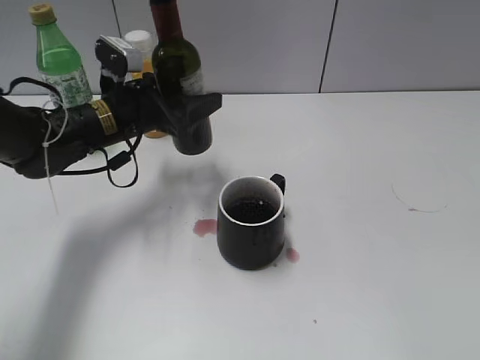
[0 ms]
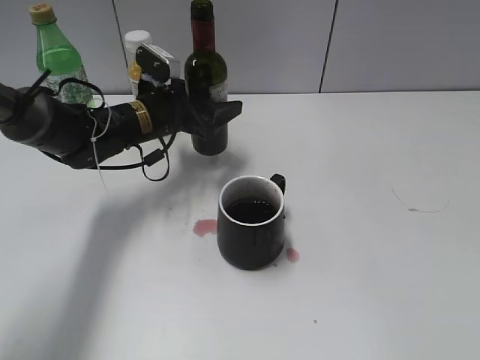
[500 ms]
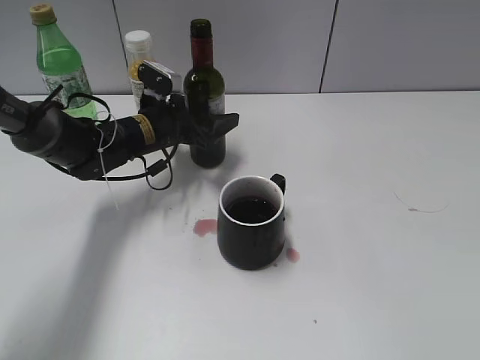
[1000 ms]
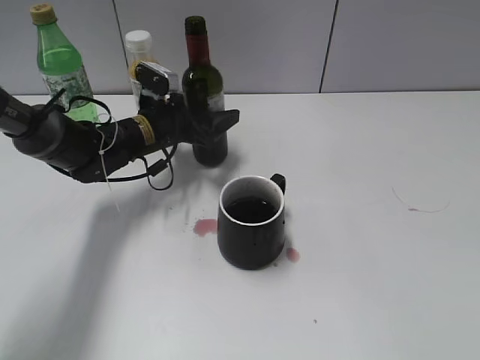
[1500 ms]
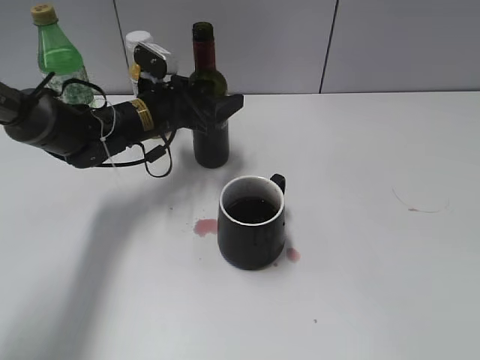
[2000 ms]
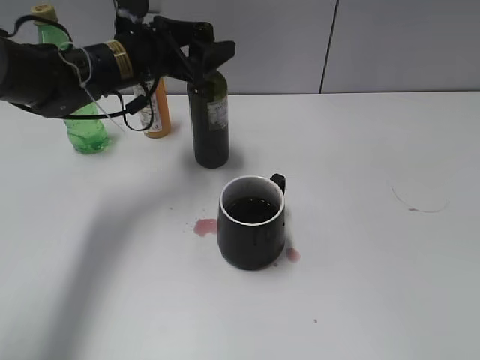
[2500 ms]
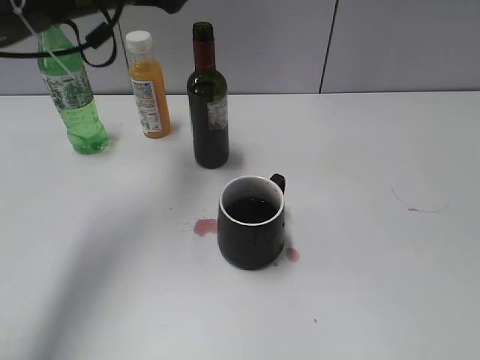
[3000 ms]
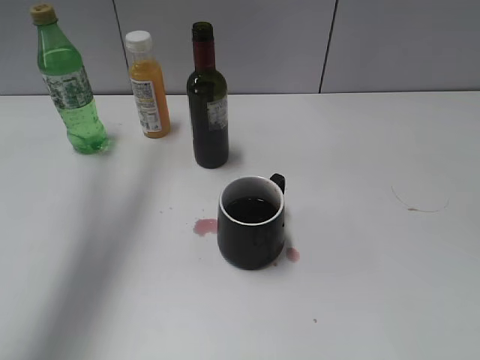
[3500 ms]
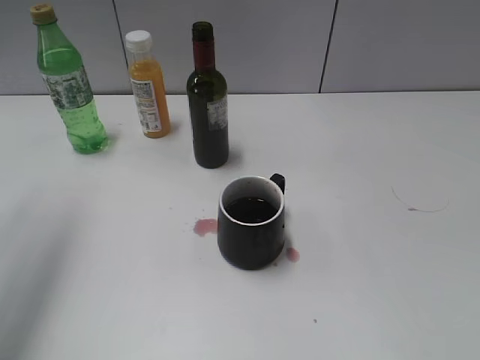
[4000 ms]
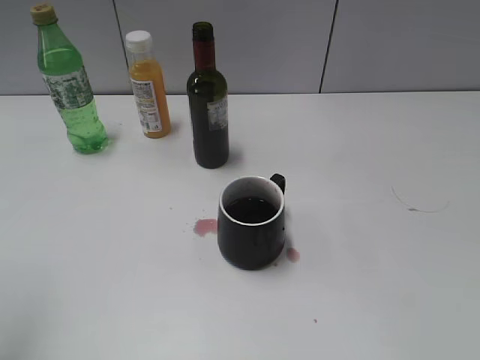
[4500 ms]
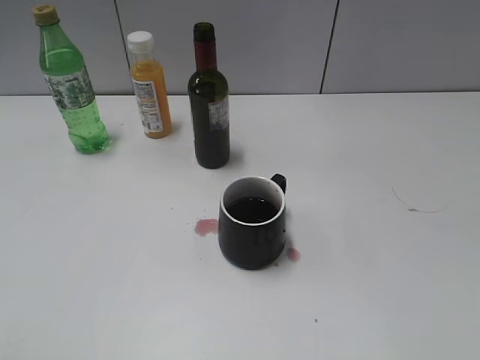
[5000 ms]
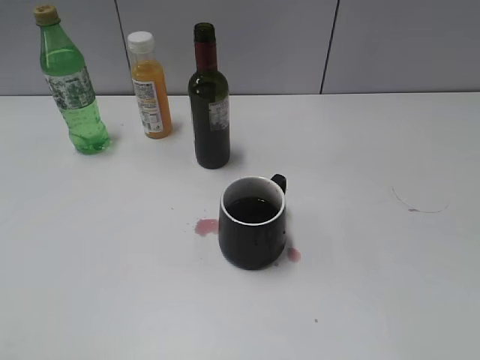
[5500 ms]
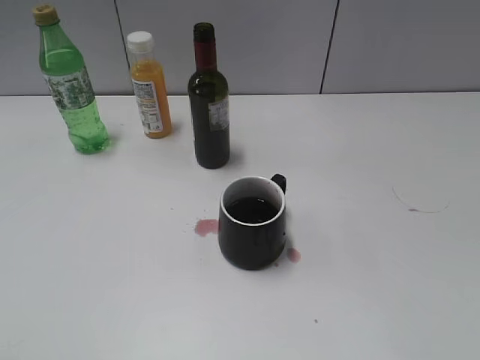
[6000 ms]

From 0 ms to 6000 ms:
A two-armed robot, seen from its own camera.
From 0 ms to 2000 ms: The left gripper moves approximately 5 cm.
From 2000 ms to 4000 ms: The left gripper shifts some 35 cm upward, to the left and backward.
From 4000 ms to 6000 ms: The left gripper is displaced backward and downward by some 30 cm.

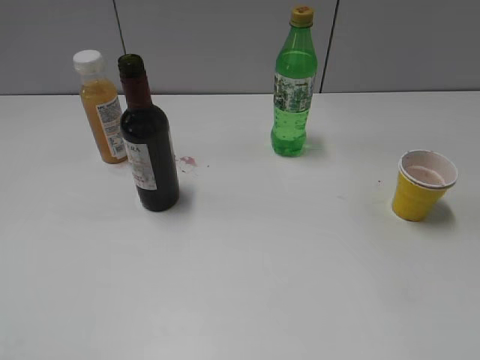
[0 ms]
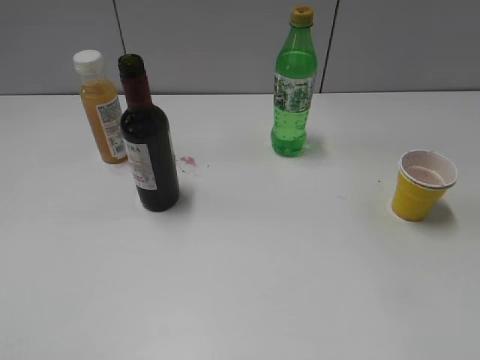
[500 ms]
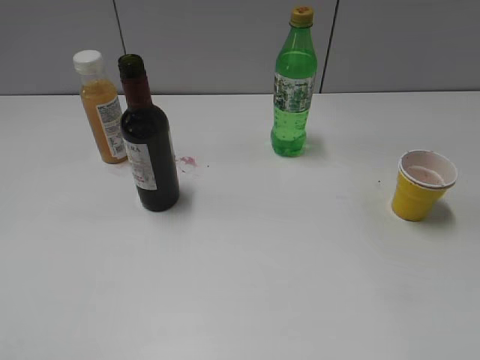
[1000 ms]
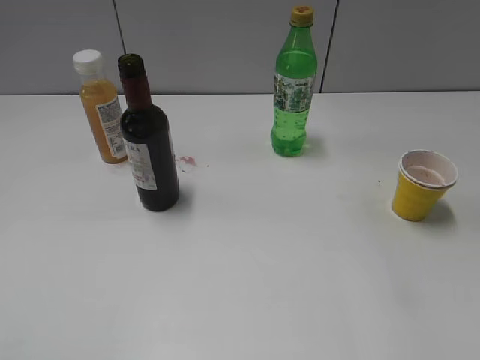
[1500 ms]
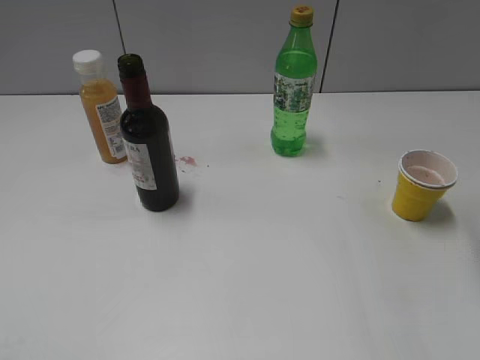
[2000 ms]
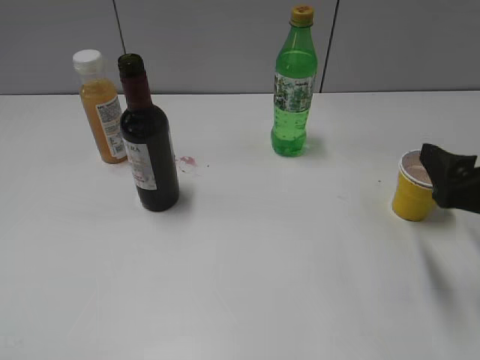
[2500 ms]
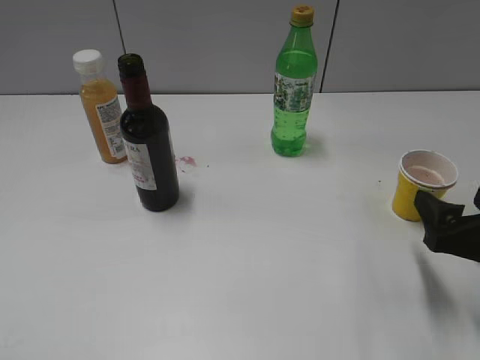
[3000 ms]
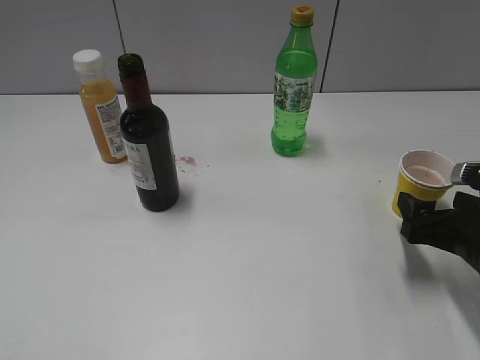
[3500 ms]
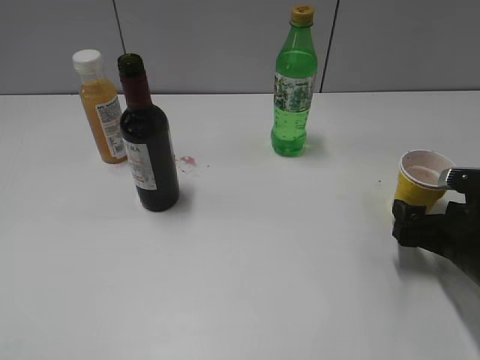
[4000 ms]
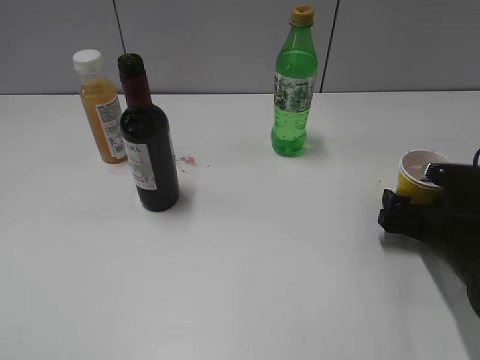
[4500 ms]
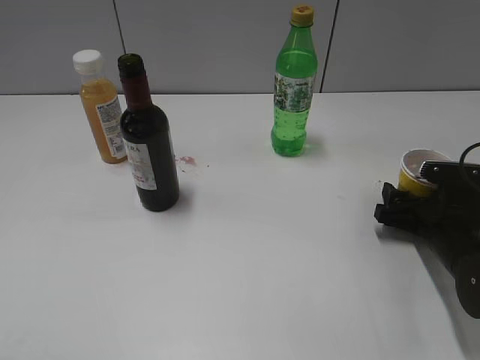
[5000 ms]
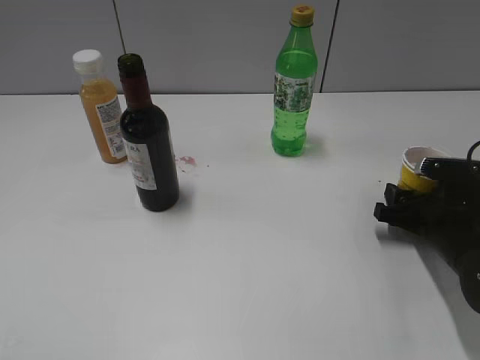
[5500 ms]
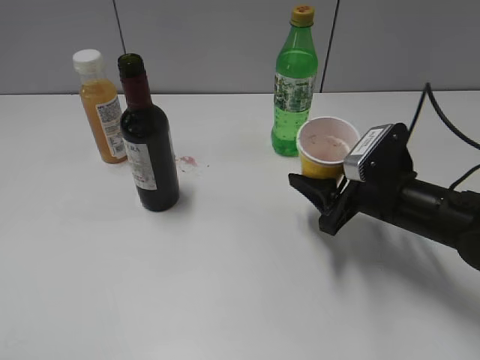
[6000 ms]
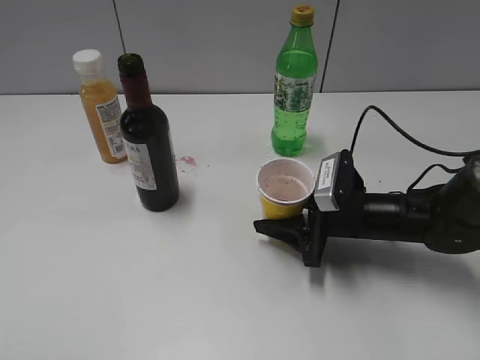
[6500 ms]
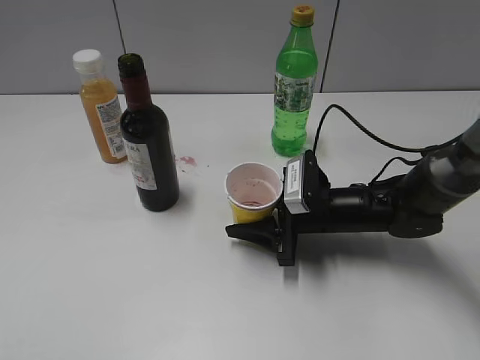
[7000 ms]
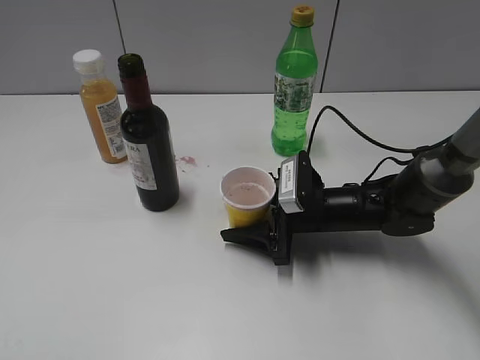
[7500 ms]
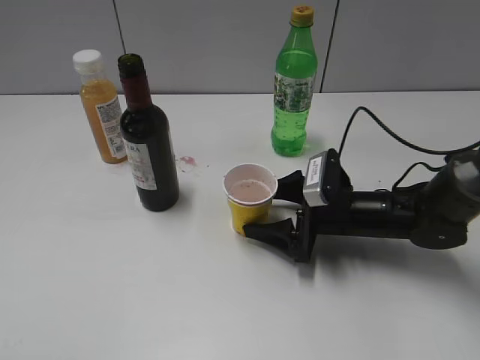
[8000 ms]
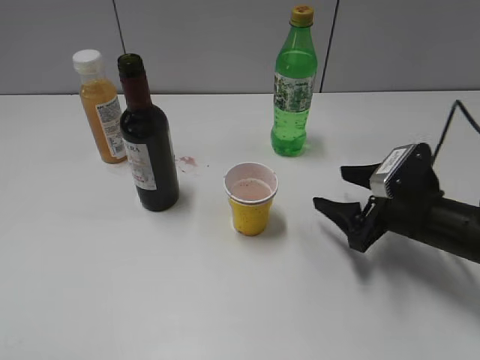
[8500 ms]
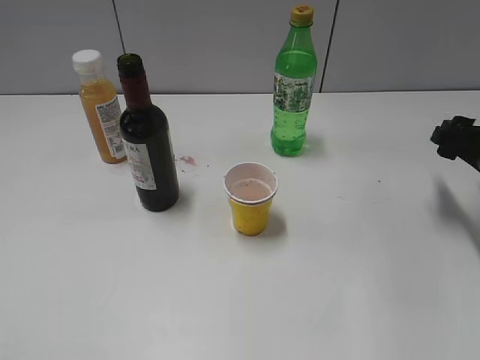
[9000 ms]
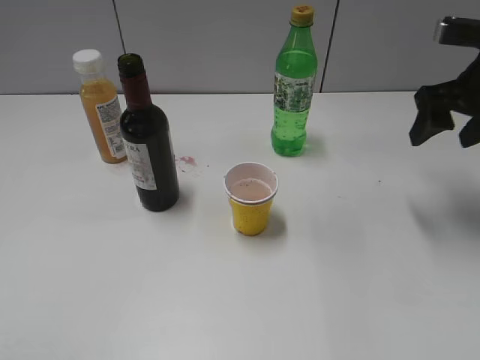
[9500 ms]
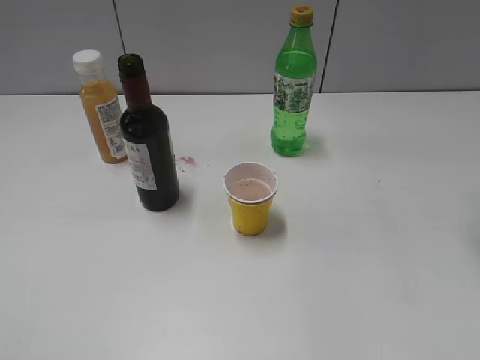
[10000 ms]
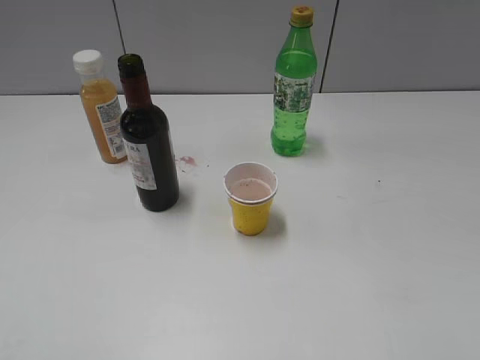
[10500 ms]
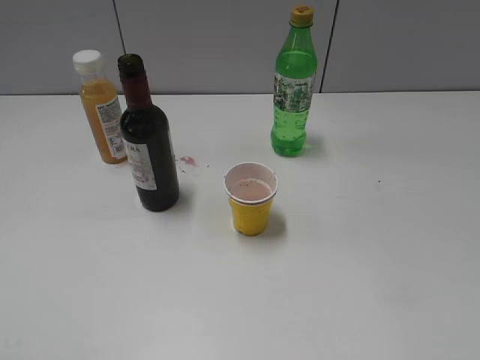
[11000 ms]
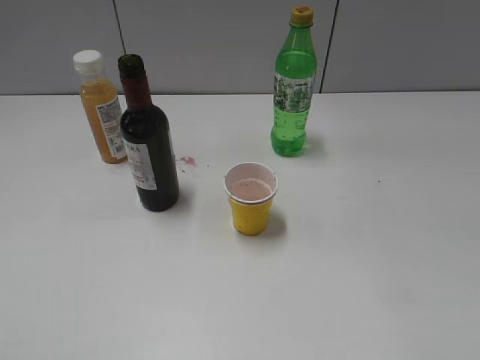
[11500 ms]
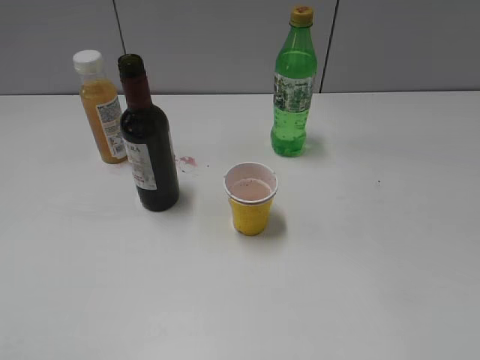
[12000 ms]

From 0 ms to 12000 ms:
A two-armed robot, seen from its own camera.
Step, from 1000 ms to 5000 ms: Grasp the yellow paper cup with right gripper.
Step, from 5500 ms to 8000 ms: Place the yellow paper cup on the table with right gripper.
From 2000 ms to 4000 ms: The right gripper is displaced downward by about 20 cm, and opens up.
From 4000 ms to 6000 ms: The right gripper heads to the left and forward, covering roughly 10 cm, and closes its fingers.
From 6000 ms to 8000 ms: The right gripper shifts roughly 10 cm downward and to the left, and opens up.
From 8000 ms to 10000 ms: The right gripper moves upward and to the right, approximately 35 cm.

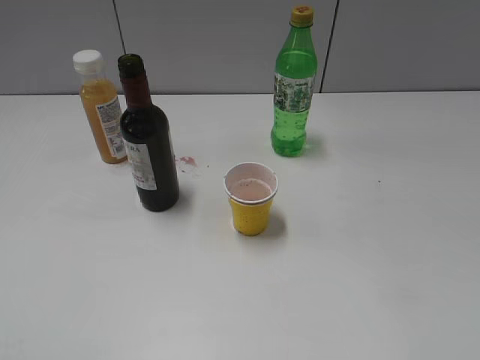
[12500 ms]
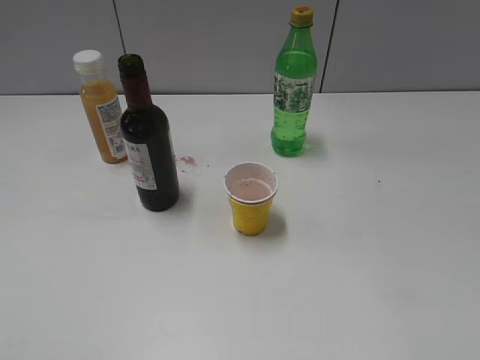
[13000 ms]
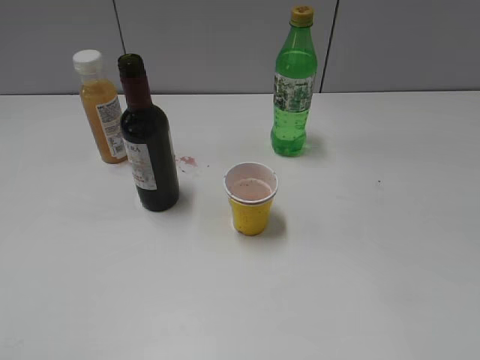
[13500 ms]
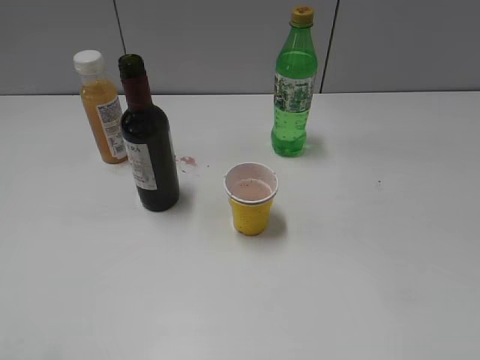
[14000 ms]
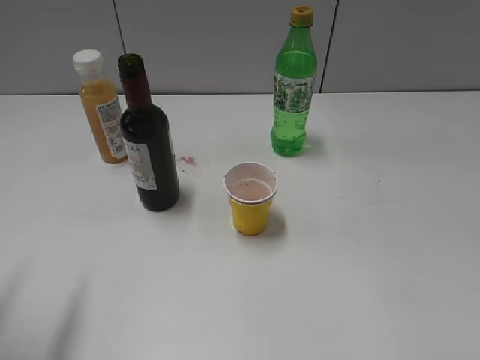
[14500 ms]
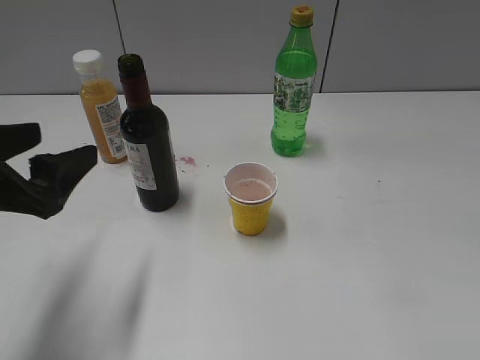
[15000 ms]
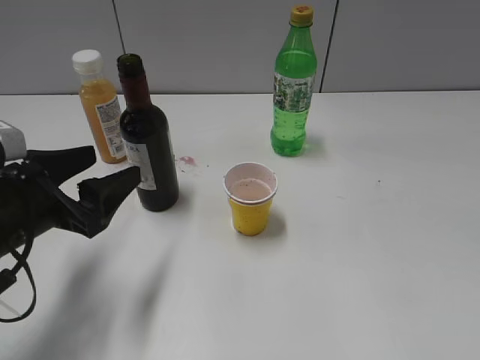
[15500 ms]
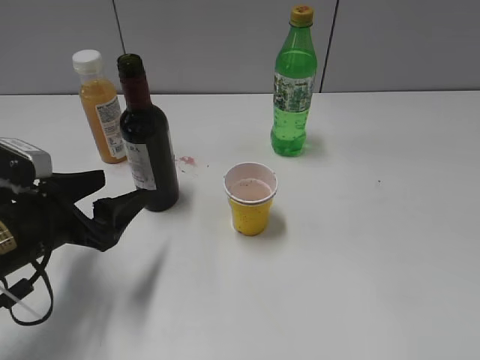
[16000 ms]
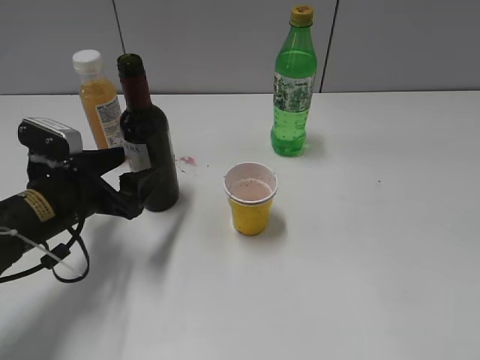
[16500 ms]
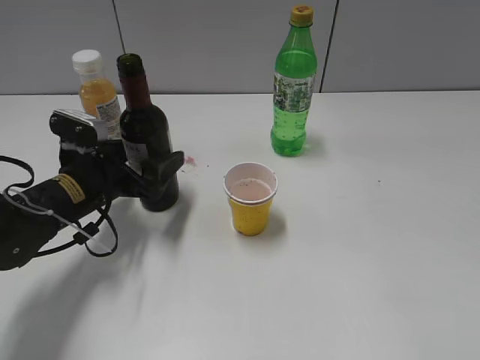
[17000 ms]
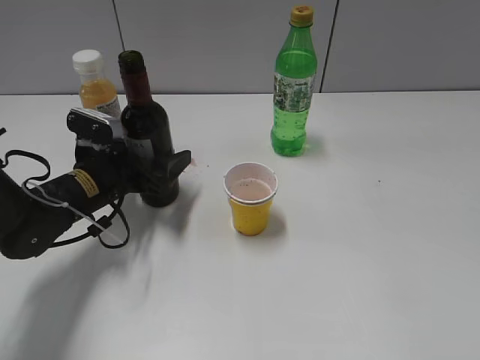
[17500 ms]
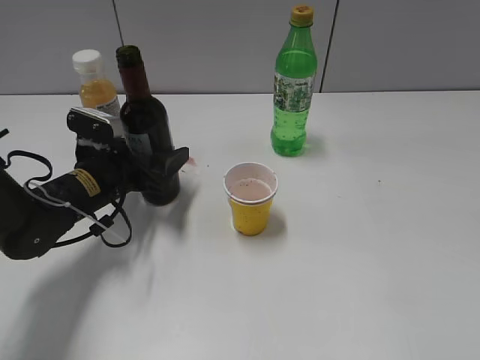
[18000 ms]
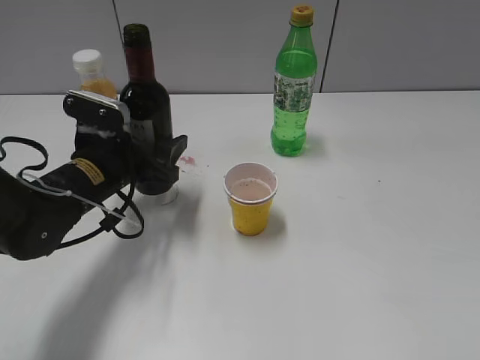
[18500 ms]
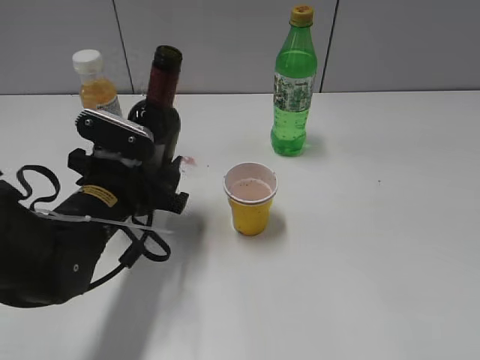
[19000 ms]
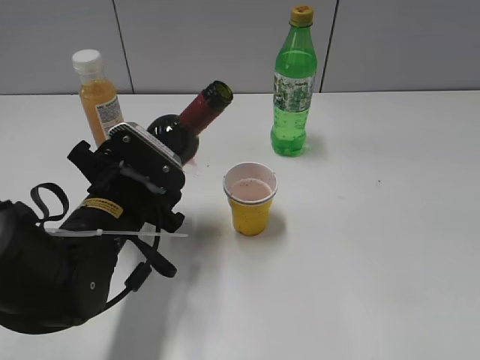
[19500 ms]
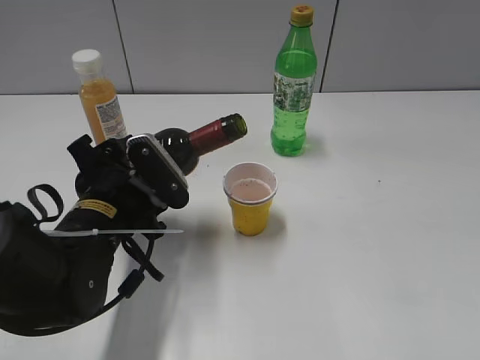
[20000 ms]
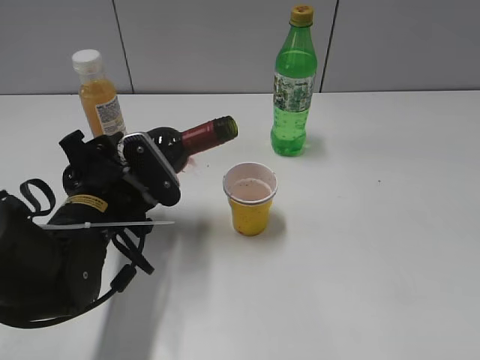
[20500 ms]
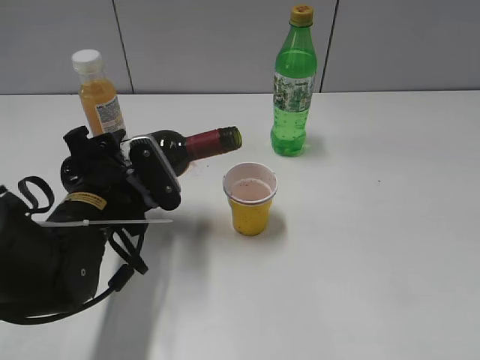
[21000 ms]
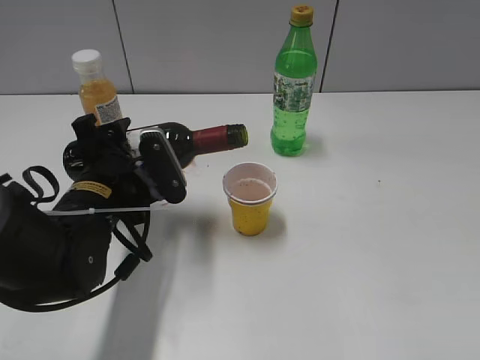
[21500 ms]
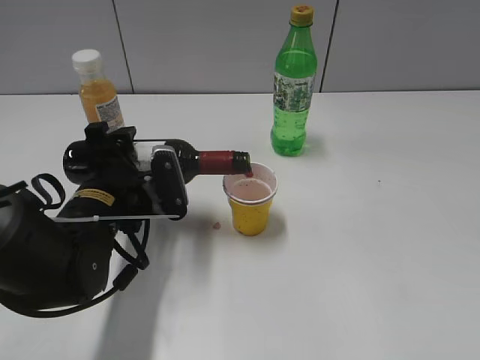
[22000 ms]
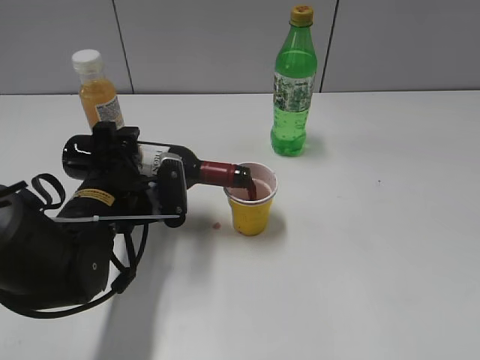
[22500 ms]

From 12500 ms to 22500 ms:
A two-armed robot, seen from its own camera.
Step, from 12500 ms to 18000 ms: Grasp the bottle with red wine with left gripper.
From 12500 ms to 14500 ms: The left gripper heads forward, covering about 15 cm, and opens up.
From 14500 ms to 16500 ms: The left gripper moves downward, forward and to the right, roughly 20 cm.
From 16500 ms to 18500 ms: The left gripper changes place by approximately 5 cm, and closes its fingers.
From 18500 ms to 20500 ms: The left gripper heads backward, covering roughly 5 cm.
